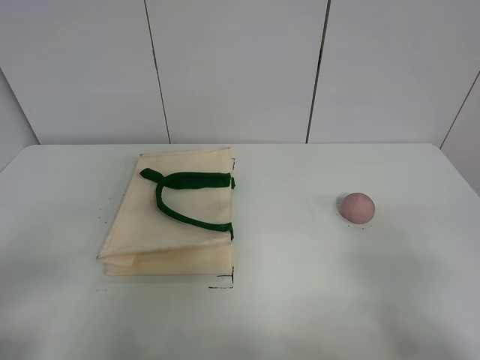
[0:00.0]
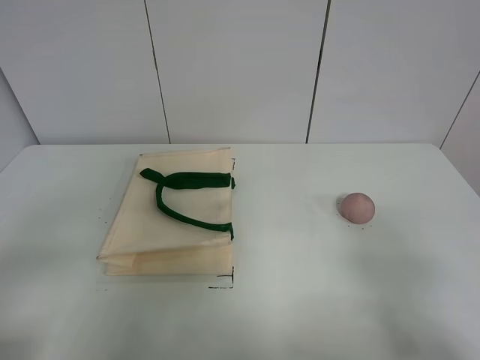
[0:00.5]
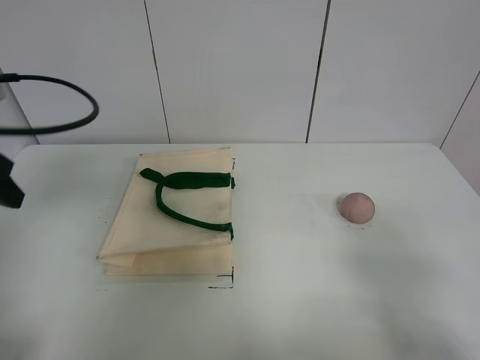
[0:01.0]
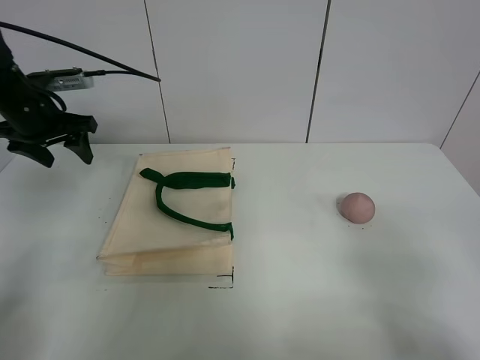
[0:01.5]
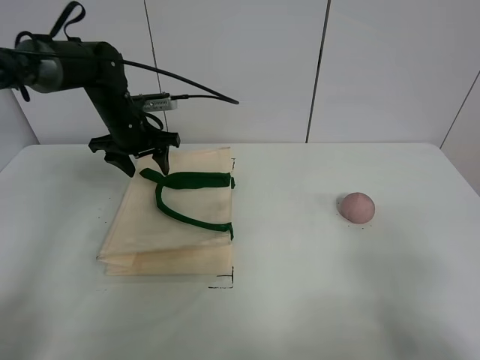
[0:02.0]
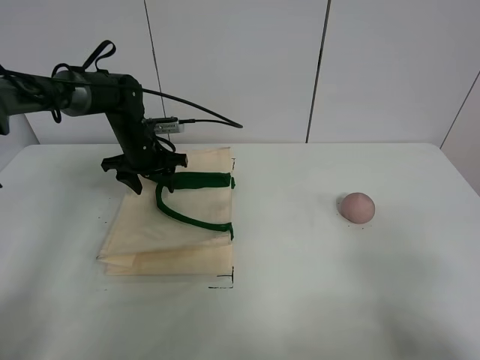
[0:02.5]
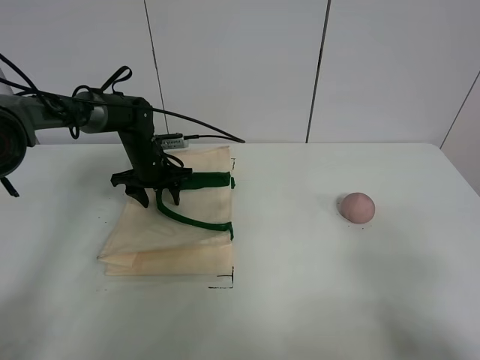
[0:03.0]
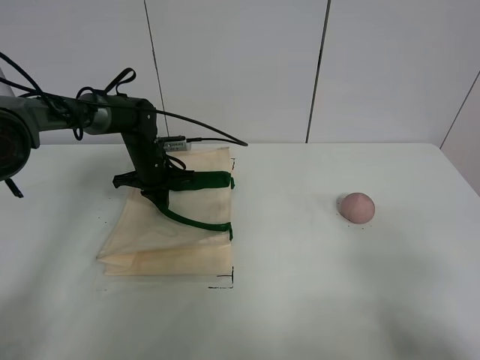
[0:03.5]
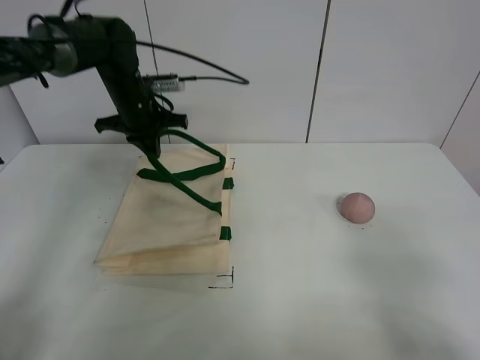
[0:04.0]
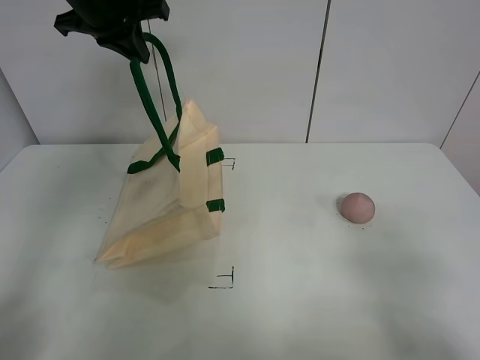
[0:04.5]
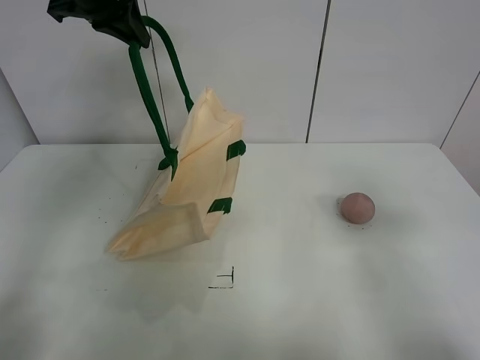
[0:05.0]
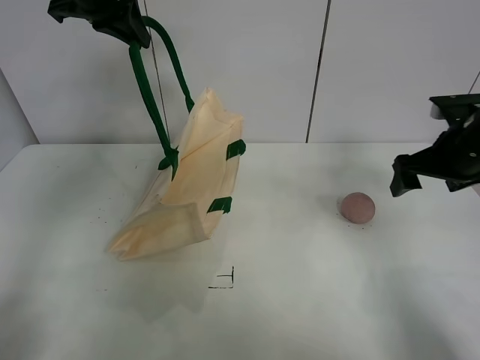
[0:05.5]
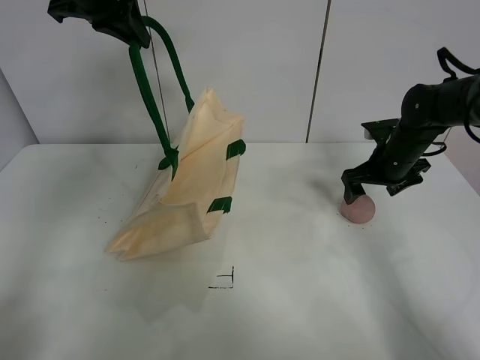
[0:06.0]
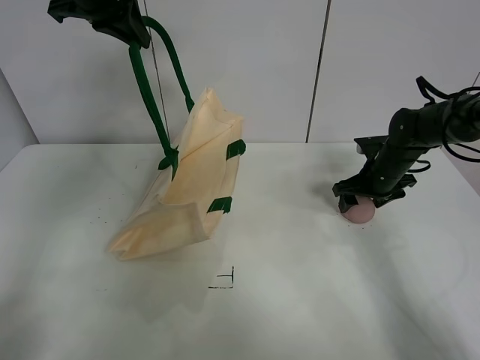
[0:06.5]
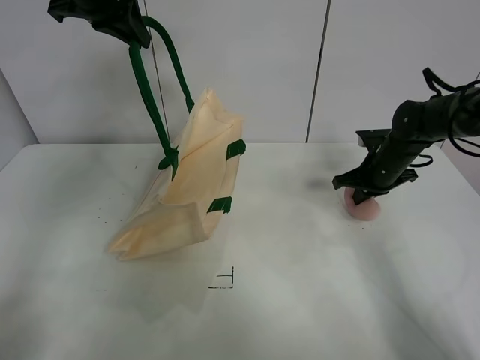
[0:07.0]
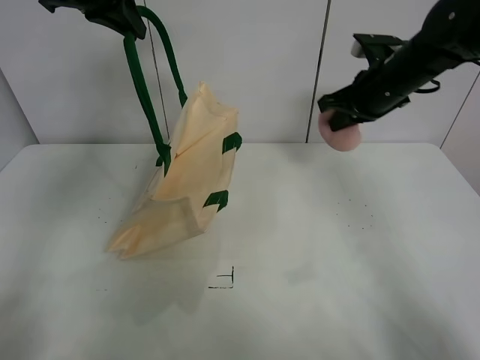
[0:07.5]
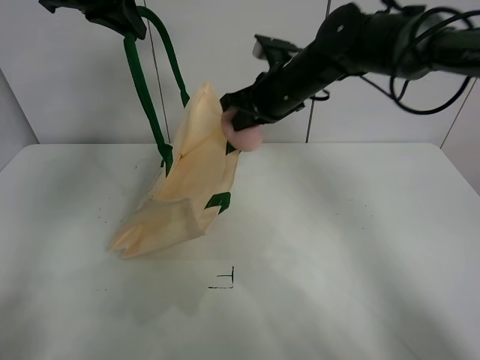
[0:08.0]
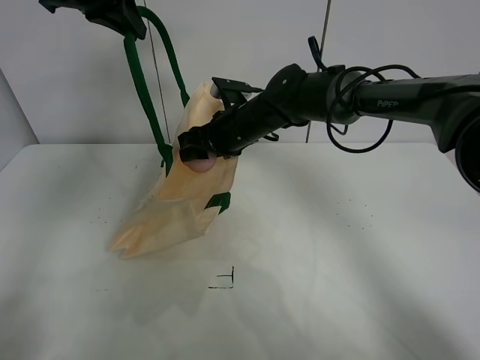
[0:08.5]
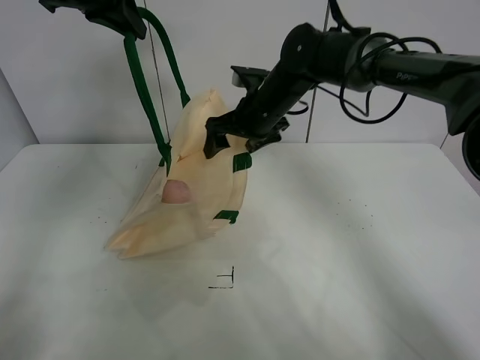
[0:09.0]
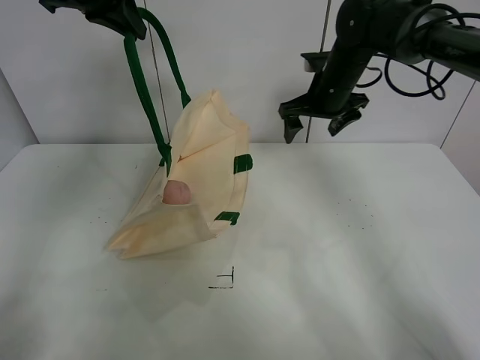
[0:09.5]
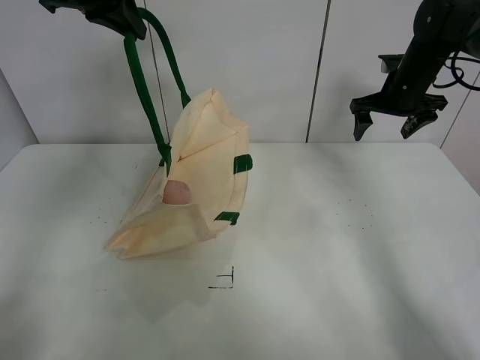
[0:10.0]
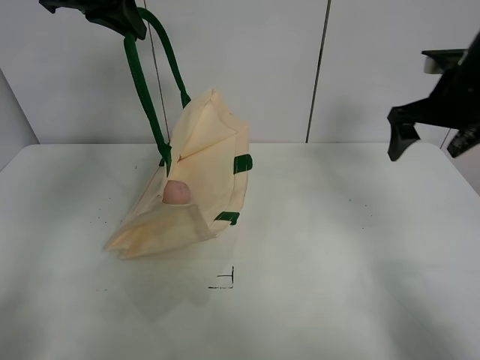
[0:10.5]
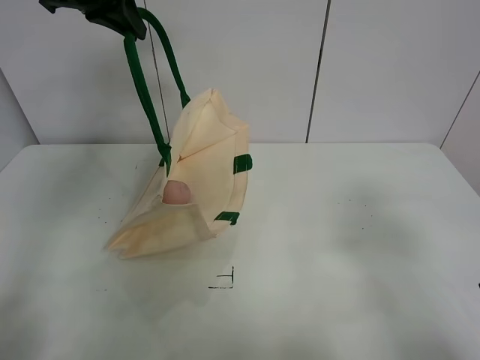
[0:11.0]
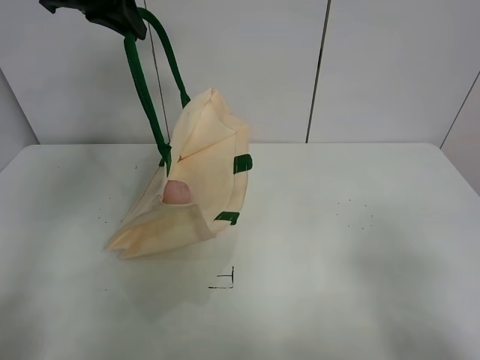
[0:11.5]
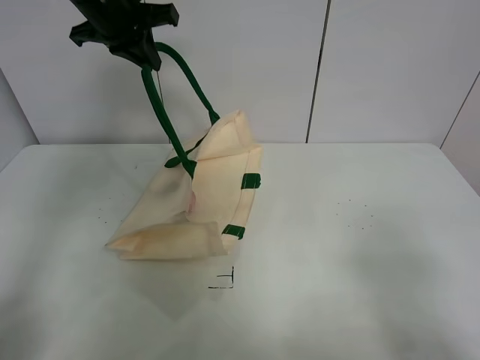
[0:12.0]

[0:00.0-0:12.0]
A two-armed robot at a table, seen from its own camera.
Task of the whole recording: open the white linen bag and put the peach in the bag.
Step, 0:00.0 to 0:04.0: Lift the handbag with left gripper.
Step, 0:04.5 to 0:07.0: Grasp the peach with right gripper.
Step, 0:07.5 to 0:08.5: Place the peach in the handbag with right gripper.
0:00.0 to 0:02.0: The left gripper heads forward, covering approximately 40 cm.
0:02.0 to 0:04.0: The left gripper reaches about 10 cm downward, then returns, and closes up.
0:04.0 to 0:06.0: The right gripper is displaced forward by roughly 40 cm. The left gripper heads upward, covering some 20 cm.
0:06.0 to 0:08.0: The right gripper goes about 25 cm to the left and upward, and closes.
0:08.0 to 0:10.0: The right gripper moves to the right, roughly 20 cm, and opens up.
0:10.0 to 0:12.0: The right gripper travels backward by roughly 50 cm. The left gripper travels downward by roughly 5 cm.

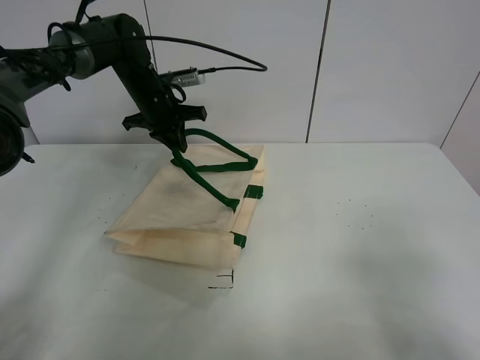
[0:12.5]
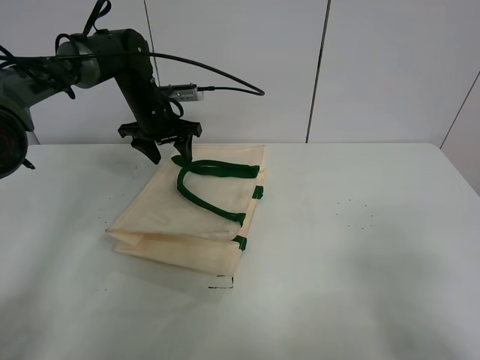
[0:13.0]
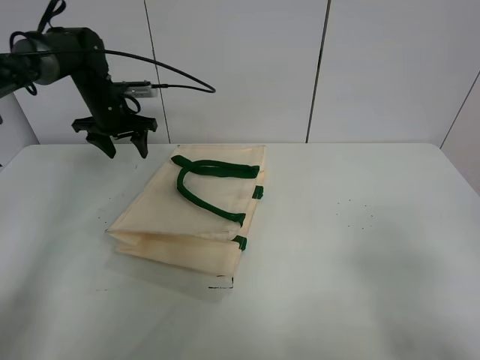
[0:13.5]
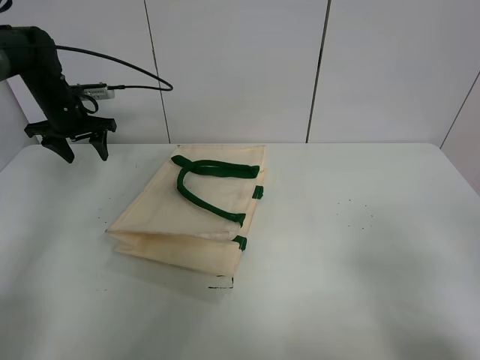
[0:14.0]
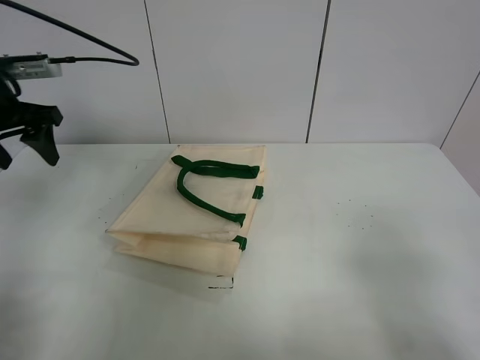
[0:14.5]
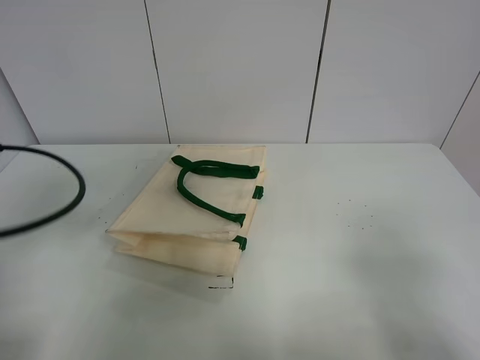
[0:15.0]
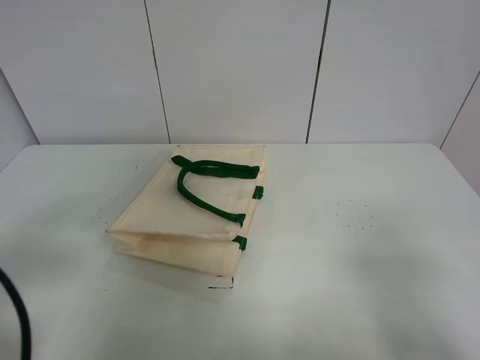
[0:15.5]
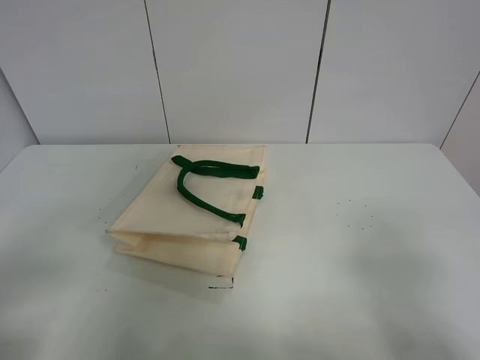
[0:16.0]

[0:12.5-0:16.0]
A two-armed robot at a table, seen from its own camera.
Task of the whole recording: open the white linen bag and put the peach in the bag.
0:12.5 to 0:14.5: The left gripper is displaced backward, to the left and upward by approximately 25 cm, and opens up.
0:14.5 to 0:16.0: The left gripper shifts approximately 30 cm backward.
